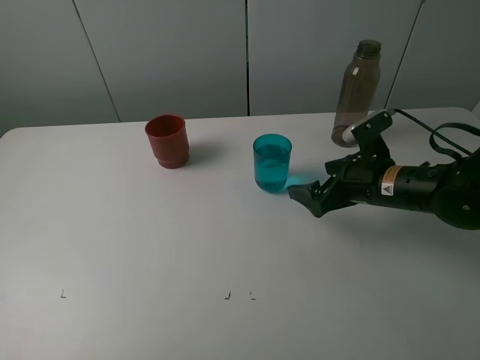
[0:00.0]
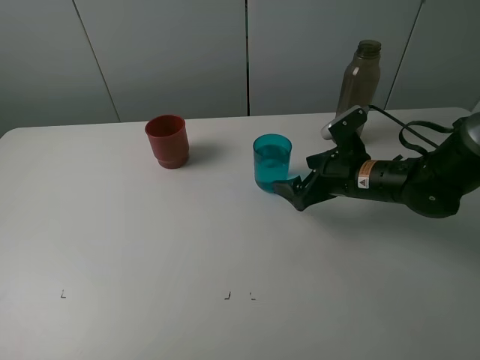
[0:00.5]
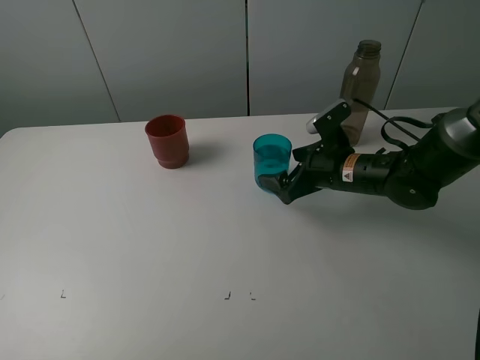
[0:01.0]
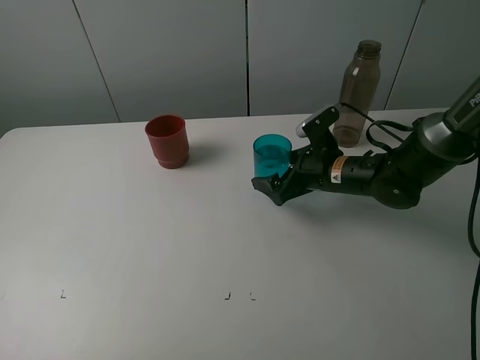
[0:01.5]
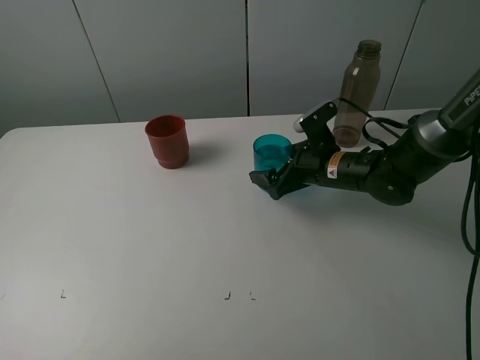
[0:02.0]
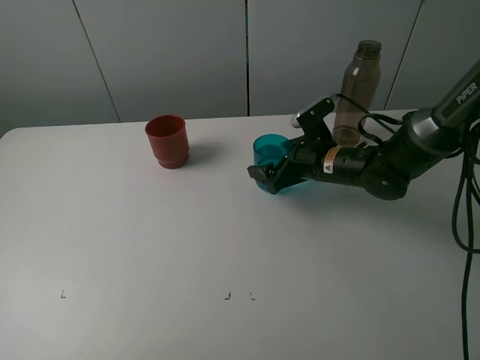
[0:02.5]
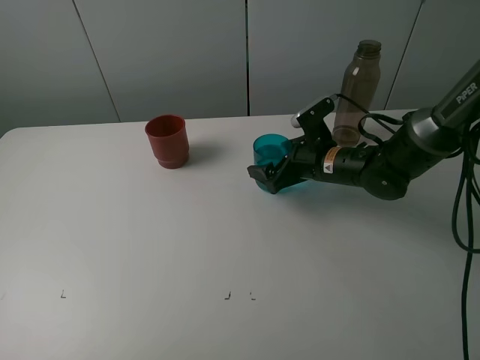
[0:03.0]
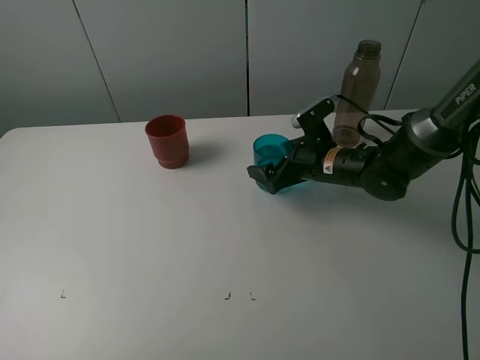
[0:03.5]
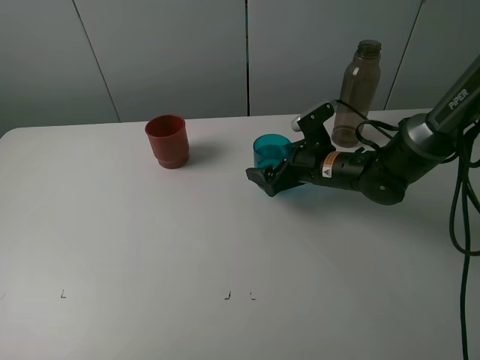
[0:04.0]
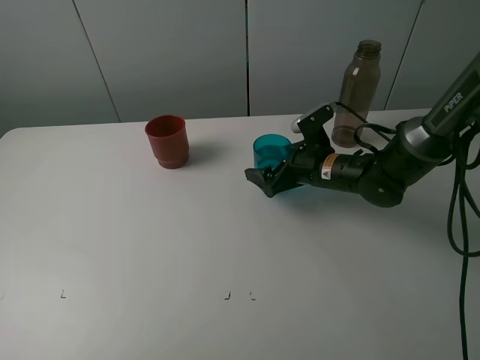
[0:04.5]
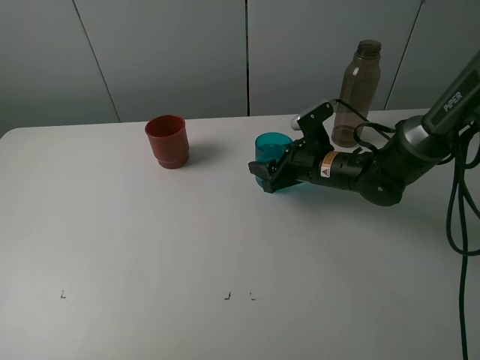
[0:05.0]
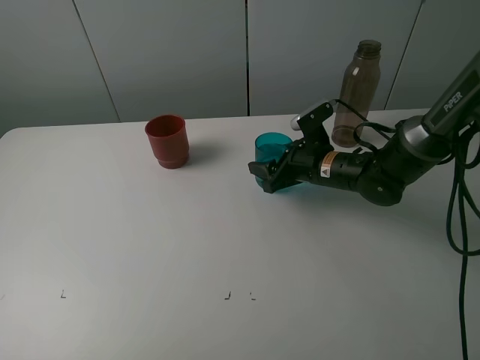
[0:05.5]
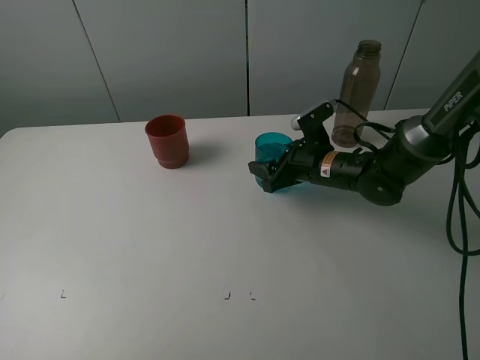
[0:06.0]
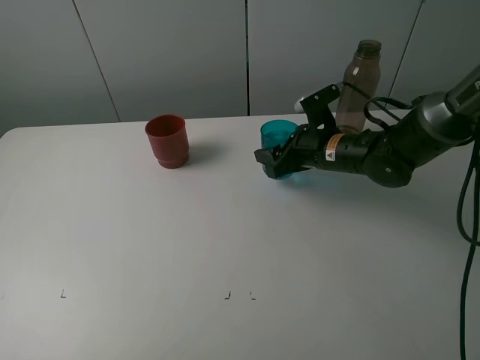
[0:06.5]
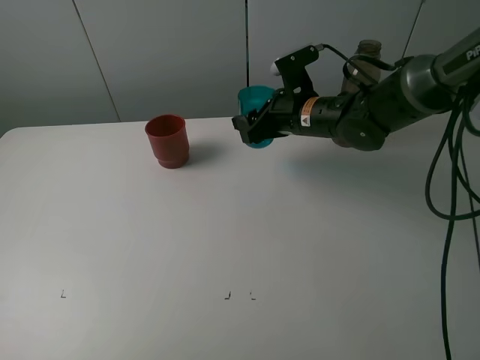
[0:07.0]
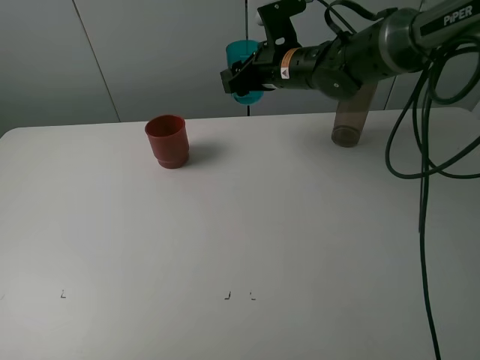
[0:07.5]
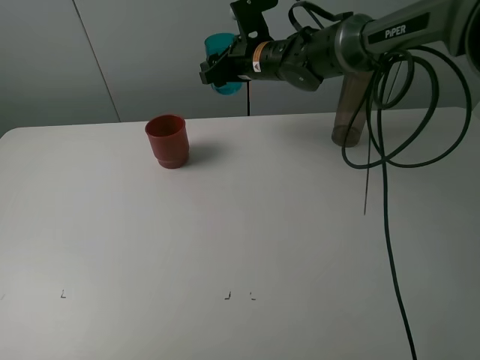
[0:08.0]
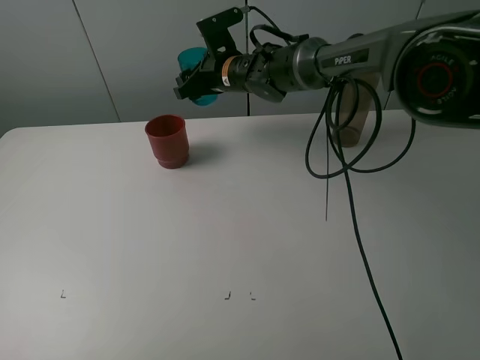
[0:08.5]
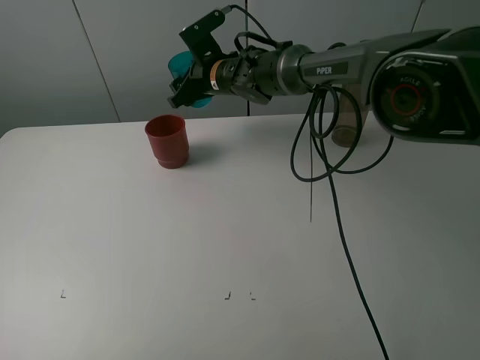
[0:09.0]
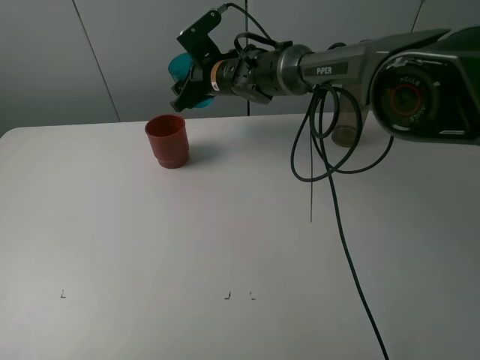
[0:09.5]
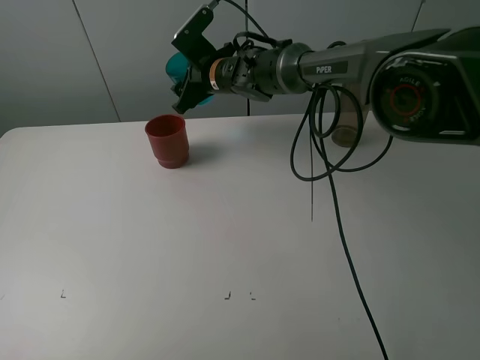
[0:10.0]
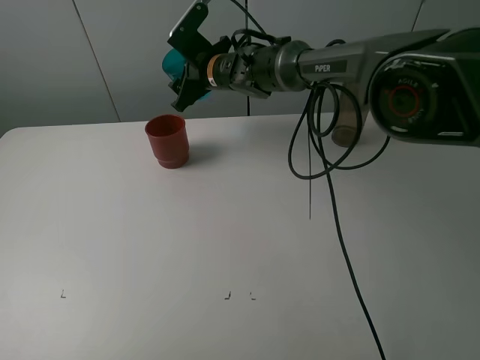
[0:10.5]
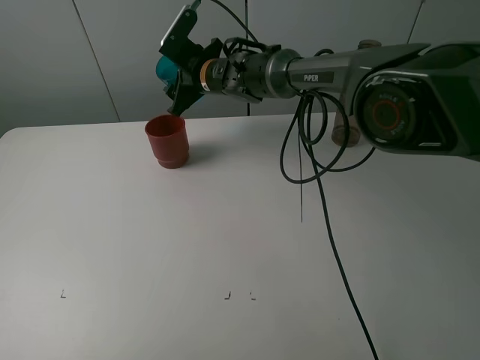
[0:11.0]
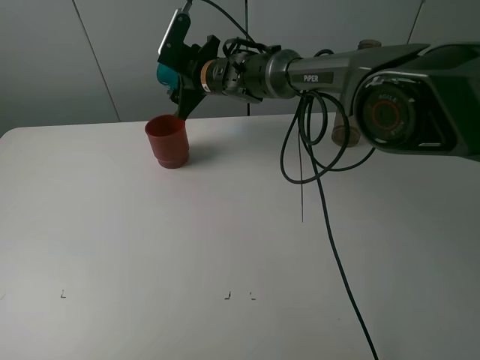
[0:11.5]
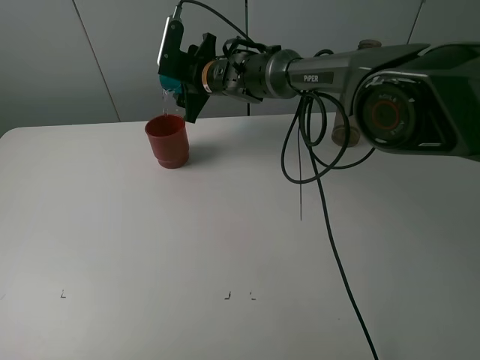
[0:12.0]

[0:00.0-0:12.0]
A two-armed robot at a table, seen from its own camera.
Task of the whole recording: pick up the bottle and pour water into the cup, then pick up the cup containing water and pour it into another cup.
Step, 0:00.0 to 0:05.0: Grasp the blue cup with the right gripper.
0:00.0 to 0:02.0: The right gripper heads forward and to the left, covering approximately 10 cm.
0:02.0 to 0:04.0: The two grippers keep their place.
0:04.0 to 0:06.0: The right gripper closes its fingers.
0:06.0 to 0:08.0: The right gripper goes some 20 cm upward, forward and to the left.
0:08.0 to 0:10.0: The right gripper is displaced to the left by roughly 5 cm.

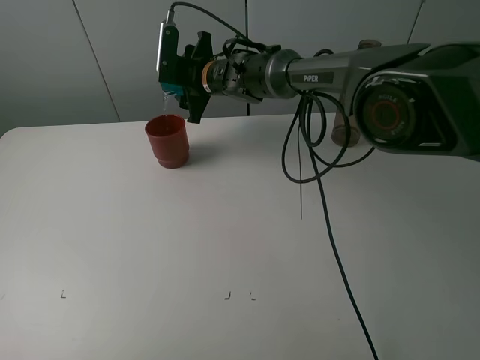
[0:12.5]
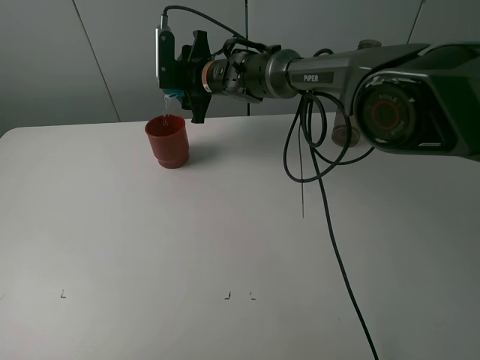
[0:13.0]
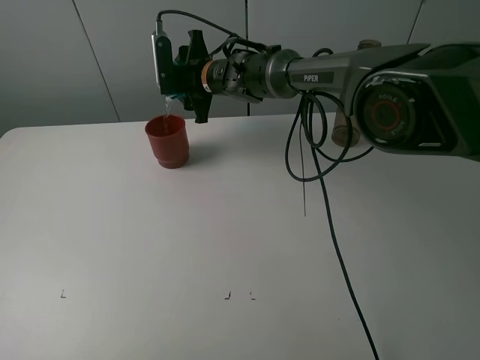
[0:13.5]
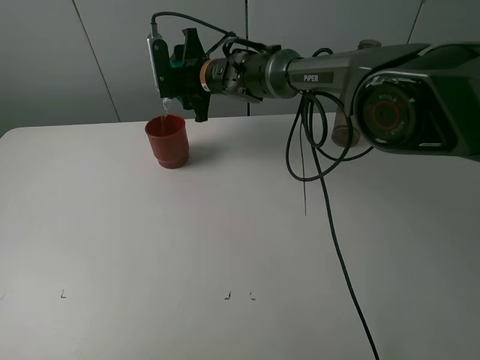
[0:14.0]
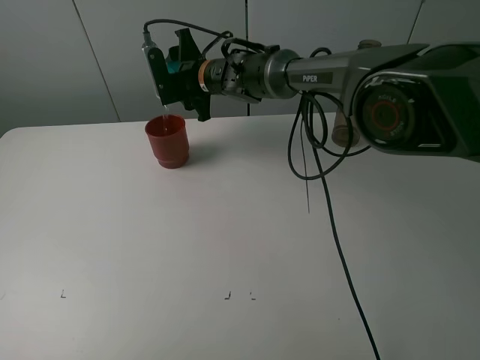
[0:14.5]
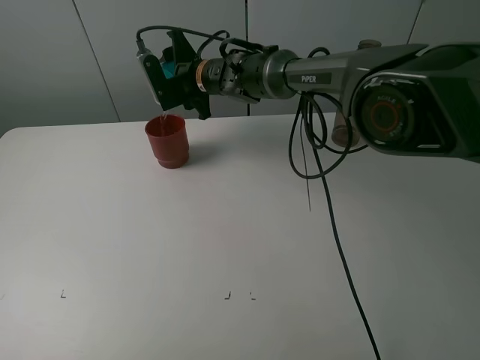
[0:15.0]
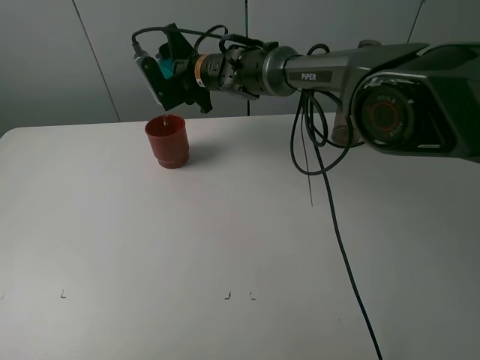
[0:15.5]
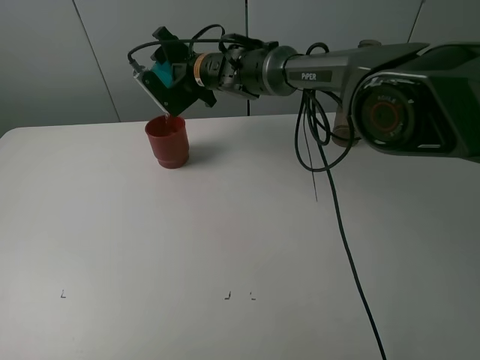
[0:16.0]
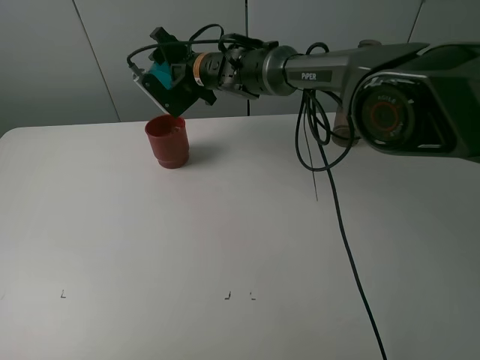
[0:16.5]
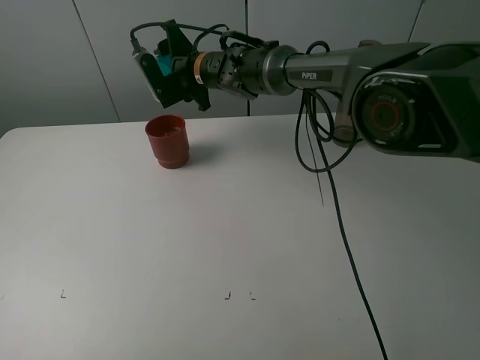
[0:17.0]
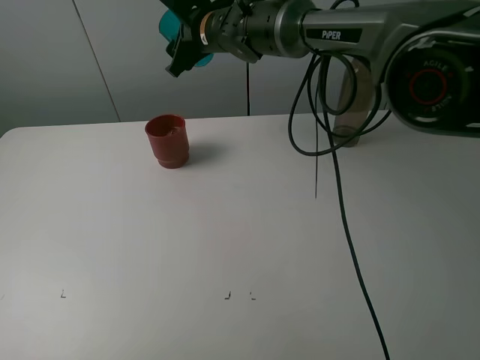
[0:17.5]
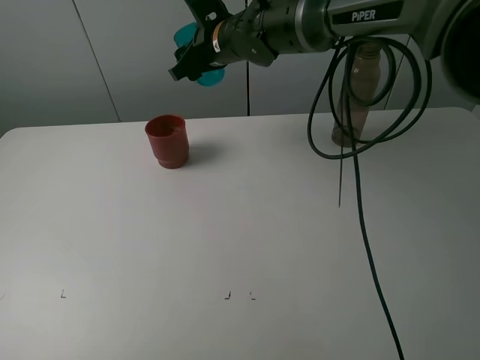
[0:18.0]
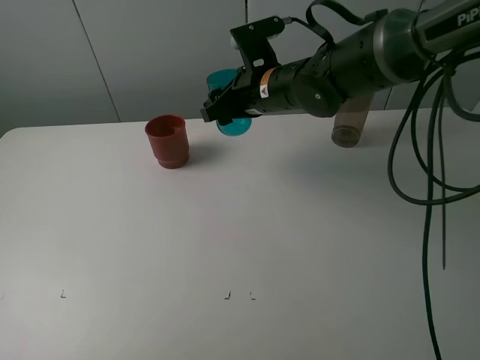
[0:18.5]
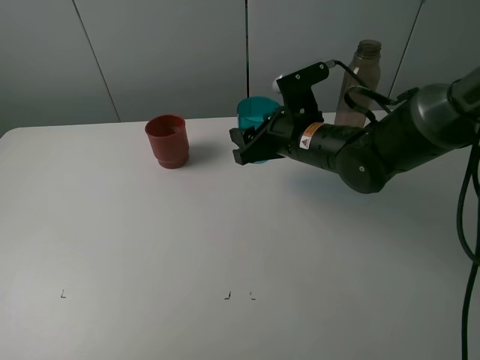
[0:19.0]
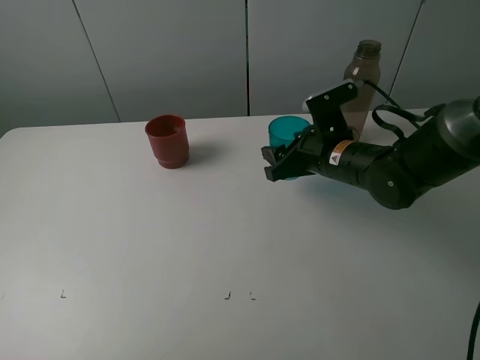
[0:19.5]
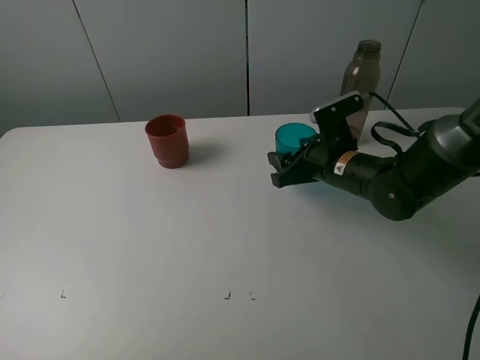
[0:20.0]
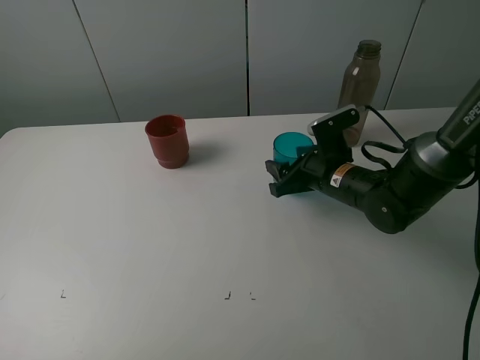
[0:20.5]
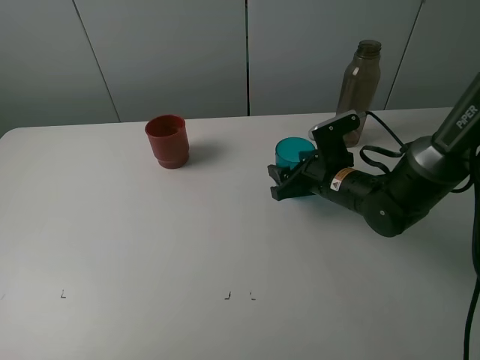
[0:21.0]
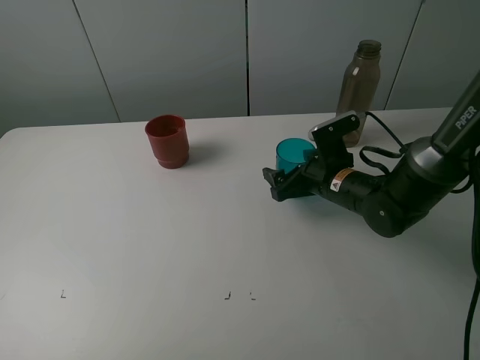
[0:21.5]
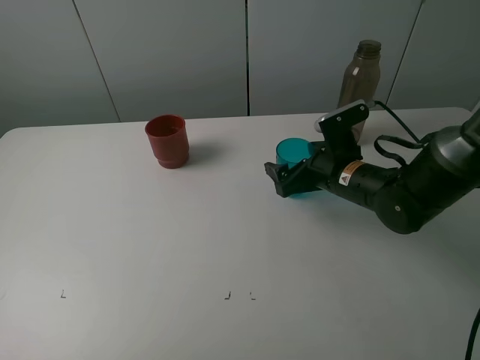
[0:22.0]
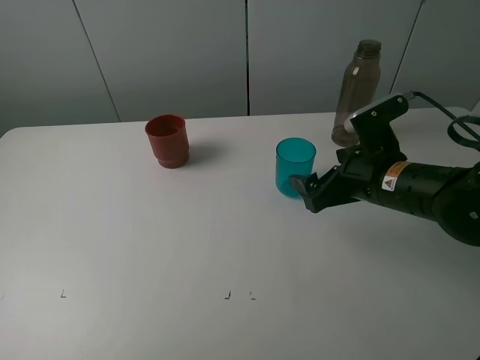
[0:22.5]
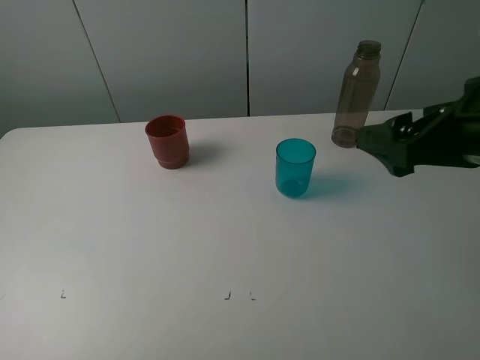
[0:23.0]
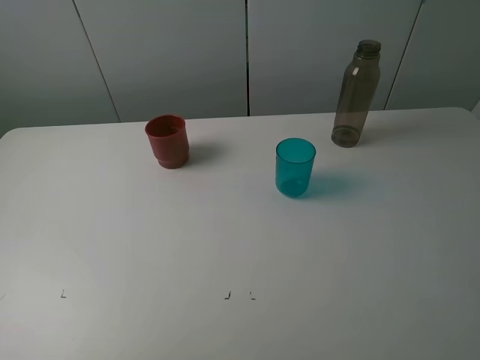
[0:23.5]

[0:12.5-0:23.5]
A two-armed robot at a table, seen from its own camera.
Task of the whole recording: pick up the bottle and pour water into the cup, then pick up the cup containing water and pour it into another cup.
Step, 0:12.5 to 0:17.0: Pour water from blue cup to red cup with the right gripper.
Step, 0:17.5 to 0:21.0: Place the blue cup with the right gripper.
0:16.0 to 0:18.0: The right gripper shifts about 5 cm upward.
0:18.0 to 0:20.0: The right gripper moves to the right, backward and downward, roughly 25 cm.
0:20.0 to 0:21.5: The right gripper opens its fingers.
0:21.5 to 0:23.5: The right gripper goes roughly 35 cm upward, backward and to the right.

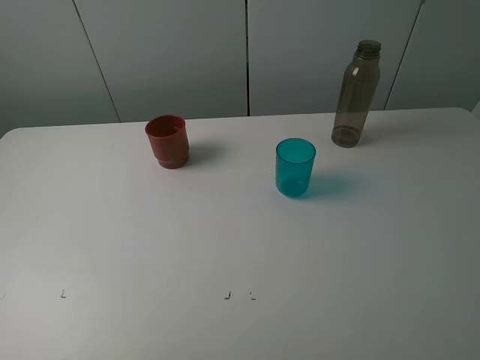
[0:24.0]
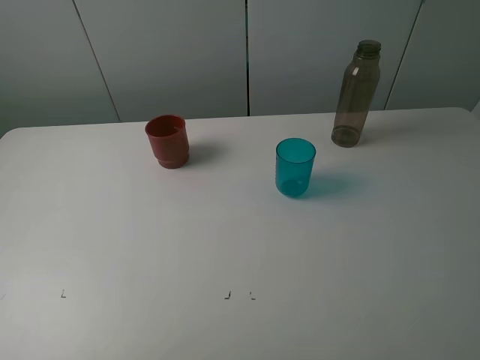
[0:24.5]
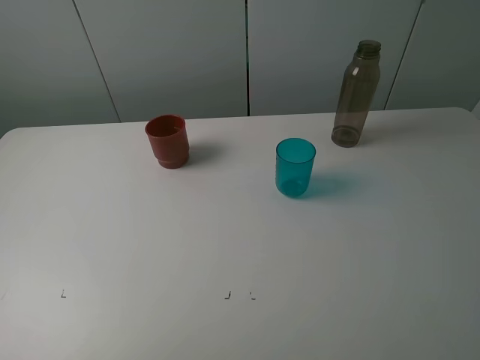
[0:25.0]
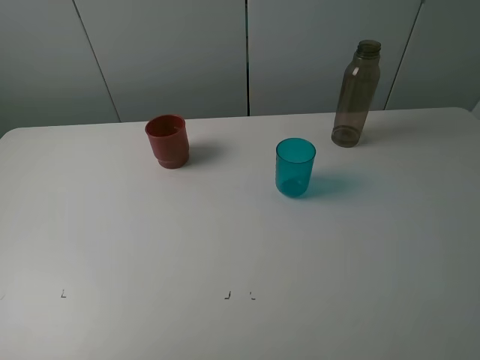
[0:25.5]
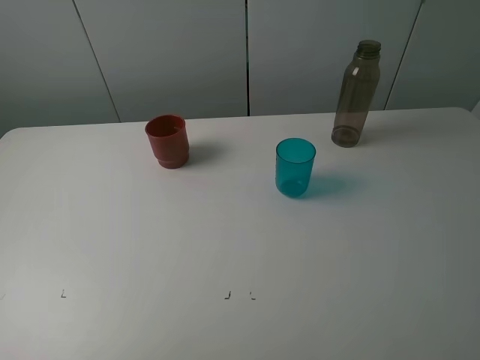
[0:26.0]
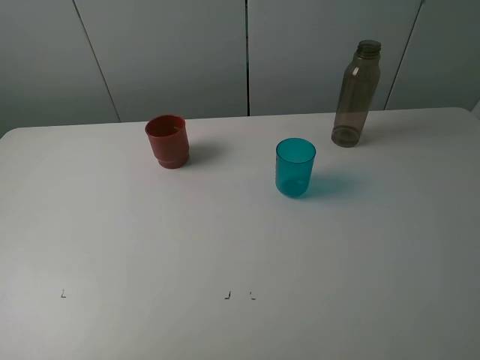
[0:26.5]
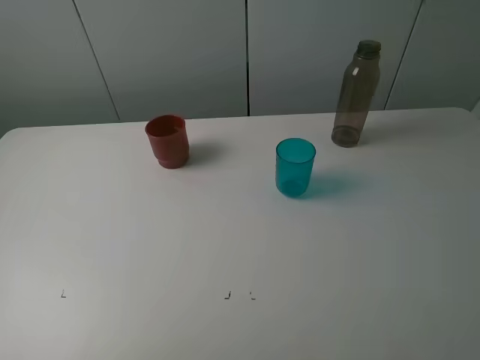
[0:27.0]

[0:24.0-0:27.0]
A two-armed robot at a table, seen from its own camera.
Task of the whole recording: pick up the bottle and pour water into the cup, then pick up the cup containing water and pour it into another cup.
0:25.5 to 0:27.0: Neither gripper changes place.
